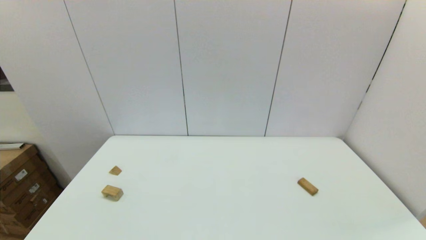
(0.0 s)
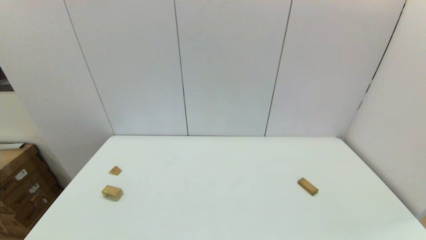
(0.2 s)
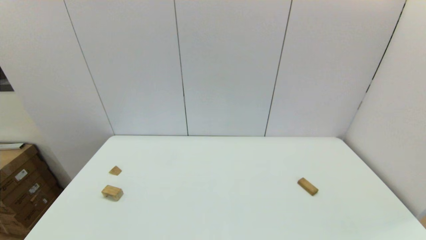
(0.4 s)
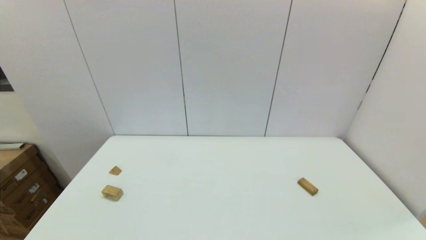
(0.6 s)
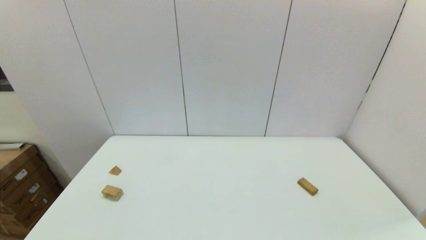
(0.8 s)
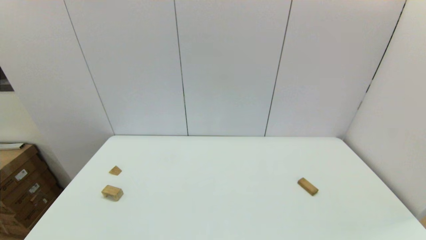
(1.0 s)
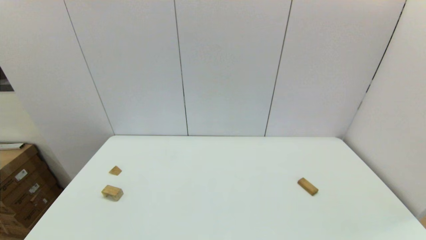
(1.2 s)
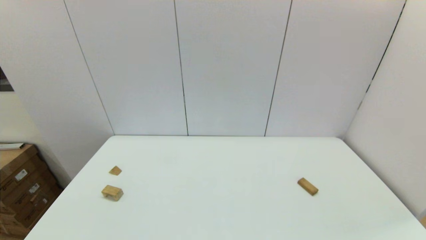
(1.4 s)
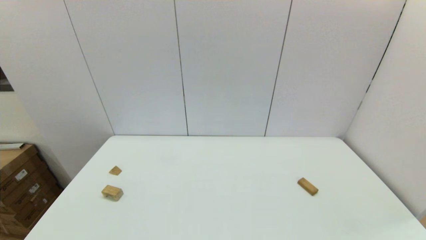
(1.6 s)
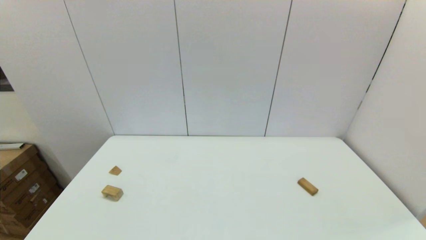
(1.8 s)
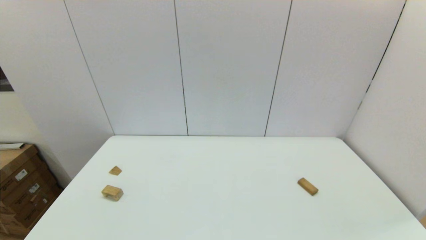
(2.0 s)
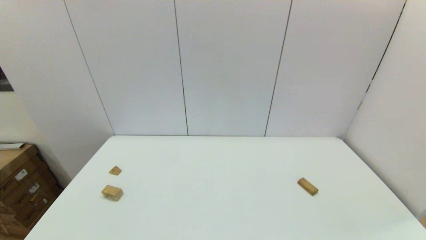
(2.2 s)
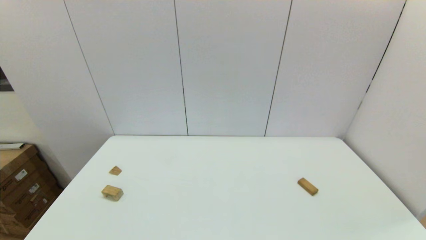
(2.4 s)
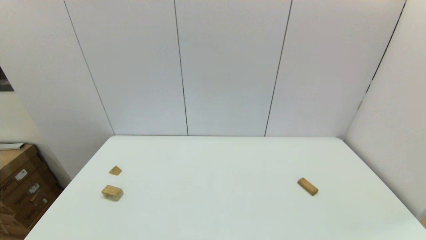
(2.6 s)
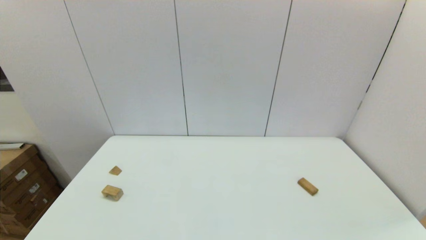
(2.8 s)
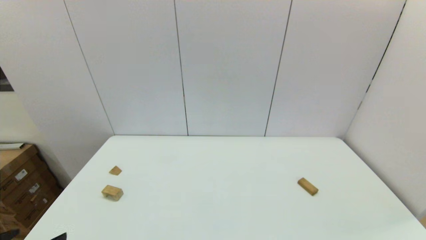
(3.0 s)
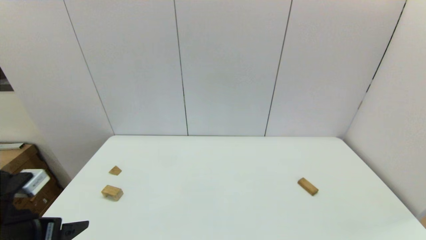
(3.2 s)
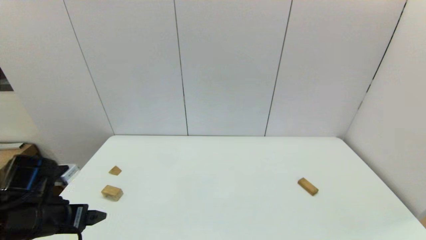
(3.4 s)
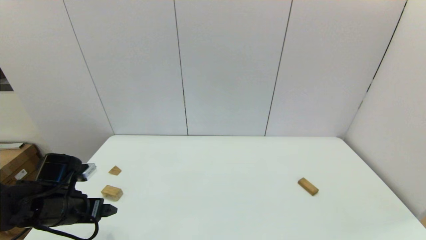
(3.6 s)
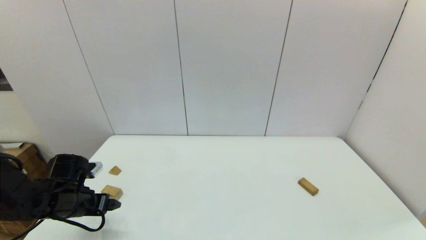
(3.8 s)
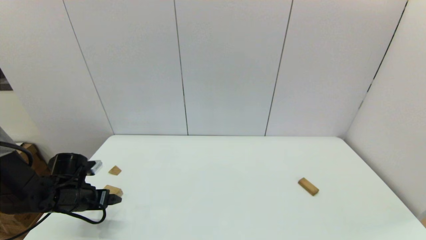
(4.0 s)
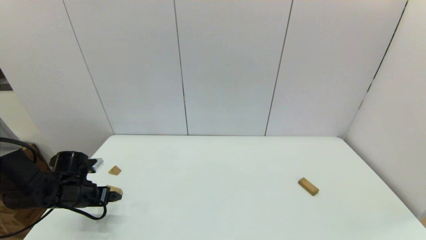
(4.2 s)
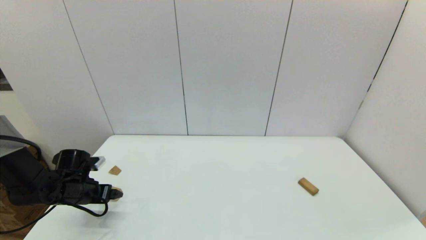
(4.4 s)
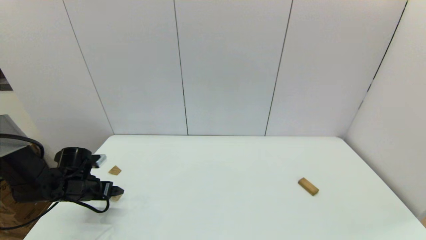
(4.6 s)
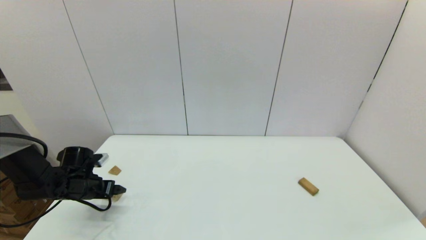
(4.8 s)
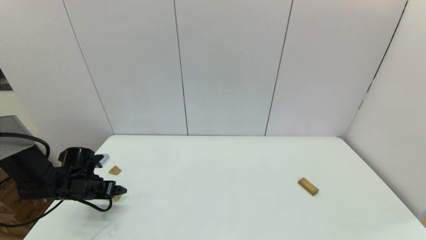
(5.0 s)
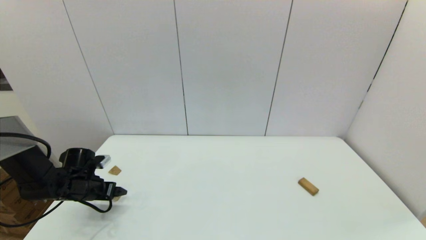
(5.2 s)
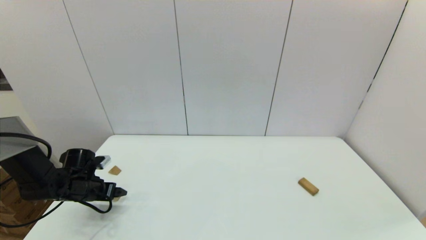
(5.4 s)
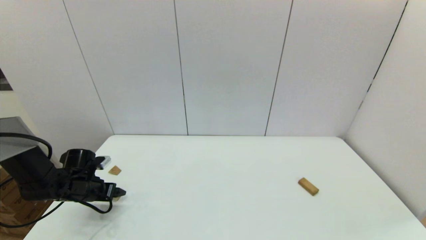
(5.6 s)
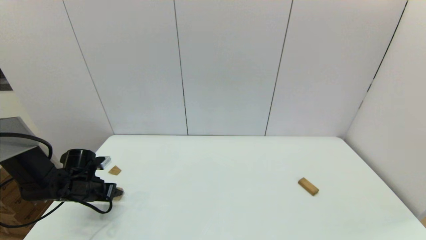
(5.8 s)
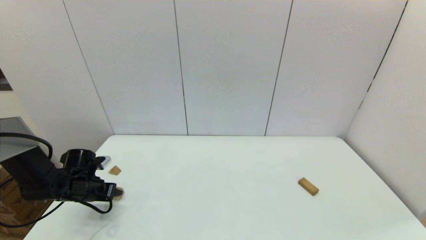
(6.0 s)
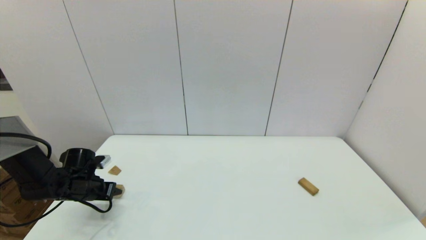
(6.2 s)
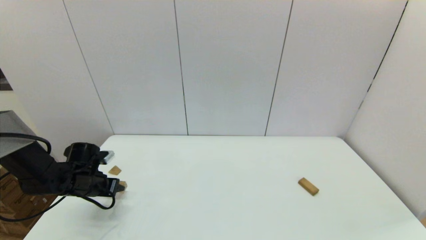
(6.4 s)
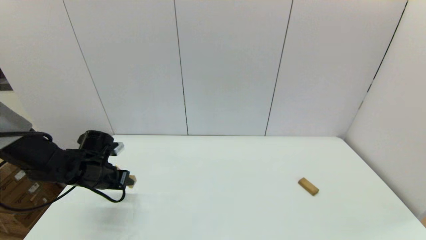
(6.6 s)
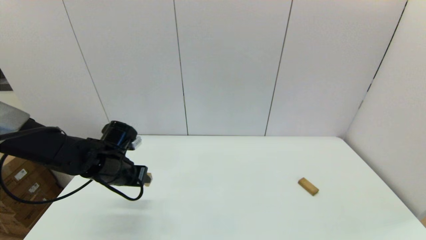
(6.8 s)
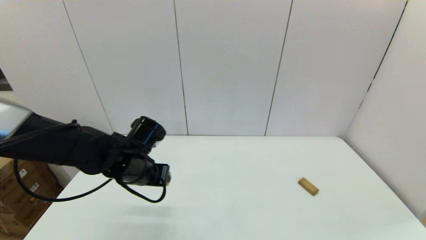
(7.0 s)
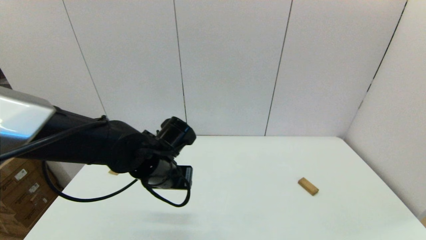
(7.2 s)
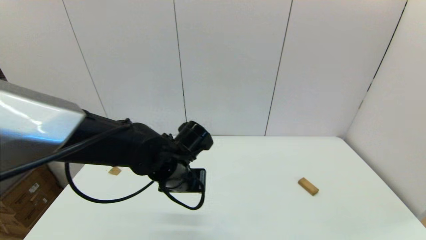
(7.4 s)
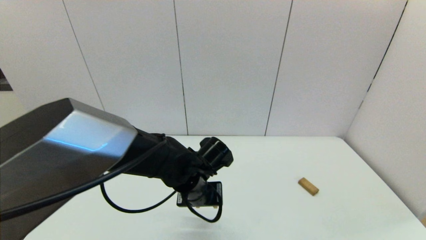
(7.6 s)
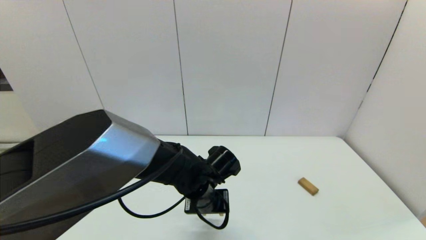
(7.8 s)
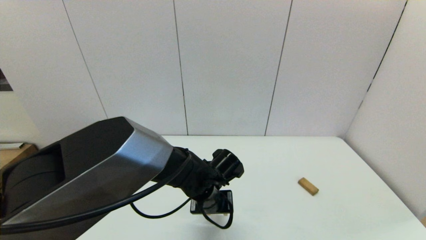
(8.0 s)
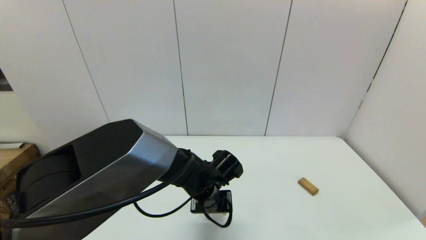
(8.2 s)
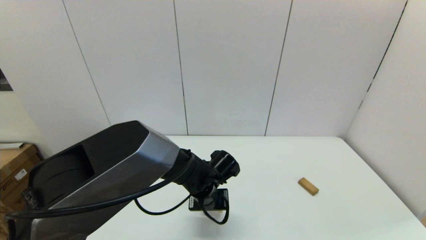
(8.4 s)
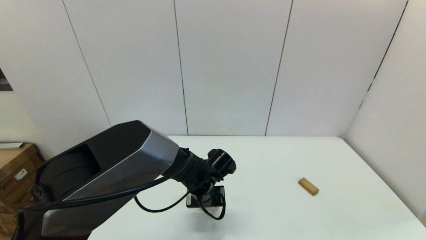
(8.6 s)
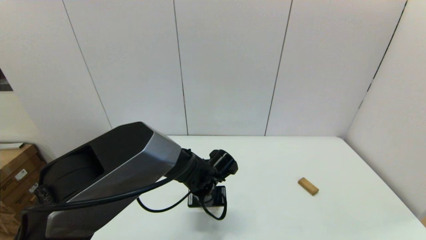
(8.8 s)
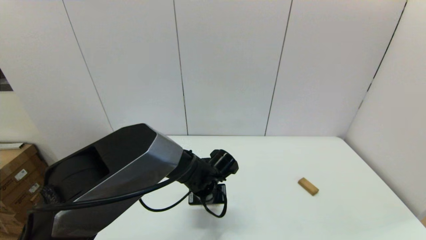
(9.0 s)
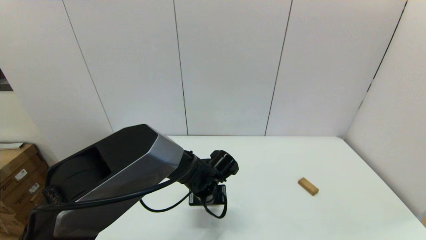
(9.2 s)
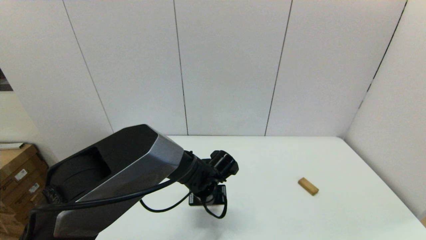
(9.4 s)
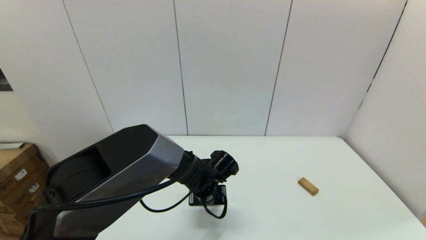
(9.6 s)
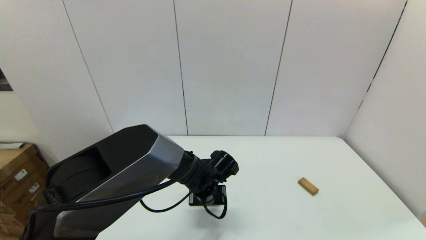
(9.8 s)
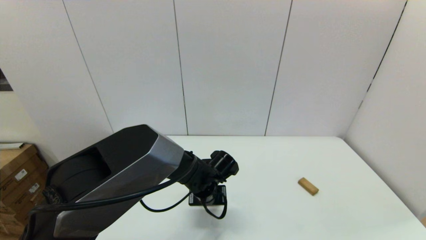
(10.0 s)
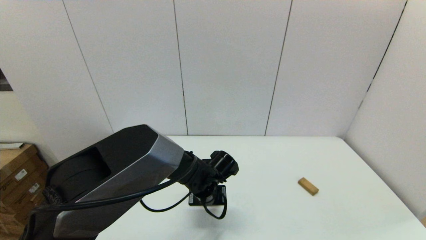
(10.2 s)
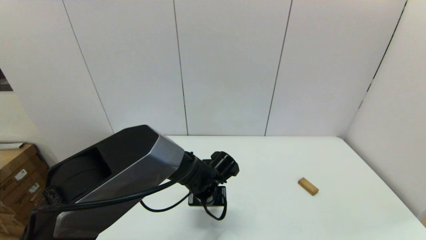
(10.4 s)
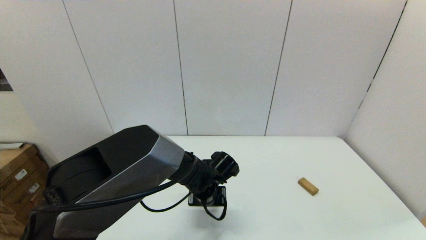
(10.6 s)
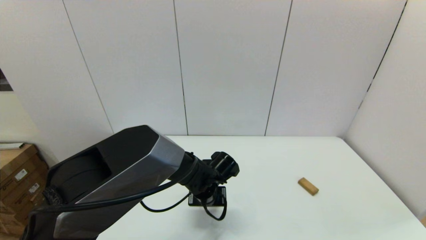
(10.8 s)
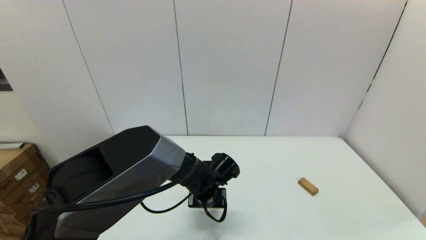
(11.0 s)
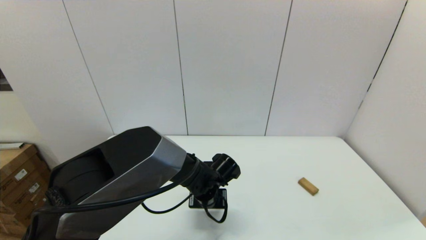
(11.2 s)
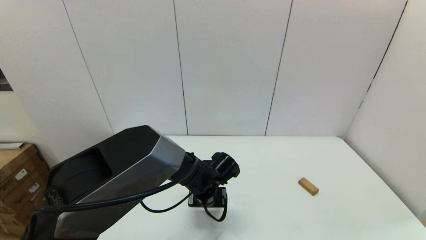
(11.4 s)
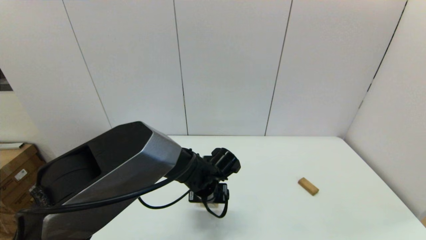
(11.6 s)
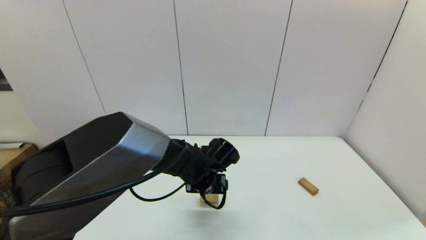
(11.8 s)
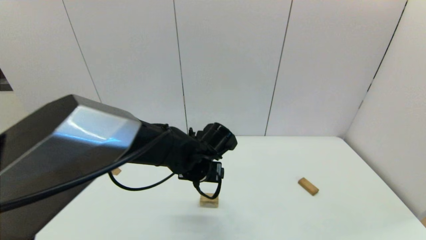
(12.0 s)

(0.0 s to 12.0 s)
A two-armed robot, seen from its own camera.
Task of the whole recording: place the arched building blocks in the center of the table, set up the rectangular building blocks, and then set up the triangular building blocks.
Step, 3.0 s - 5.8 s: Grasp the arch-shaped block with the left gripper.
Step, 6.2 s - 11.0 s: Place the arch-shaped block in the center of view with the left gripper.
0.0 s - 1.6 s: Both grippers stay put.
3.0 s - 4.4 s: The left gripper is displaced forward and downward by some 25 cm.
4.4 s - 6.0 s: The left gripper closes up.
6.0 s - 7.6 s: The left gripper goes approximately 30 cm to the right.
7.6 s - 9.0 s: The left gripper moves downward, approximately 10 cm.
9.0 s - 10.4 s: Both grippers stay about where they are.
10.4 s - 12.0 s: The left gripper shifts some 10 cm upward, and opens its fingers.

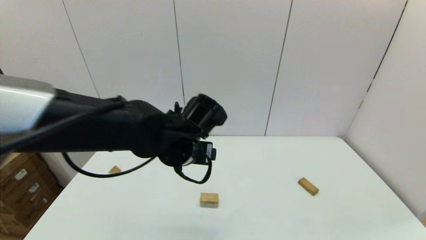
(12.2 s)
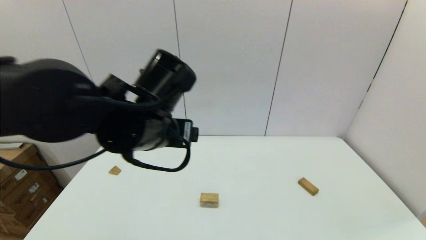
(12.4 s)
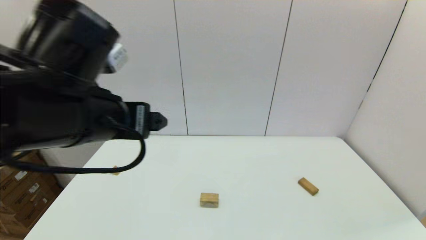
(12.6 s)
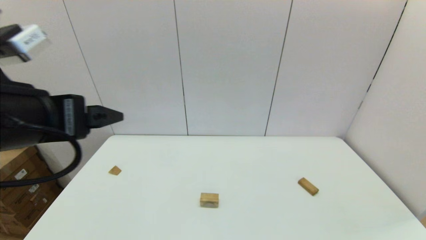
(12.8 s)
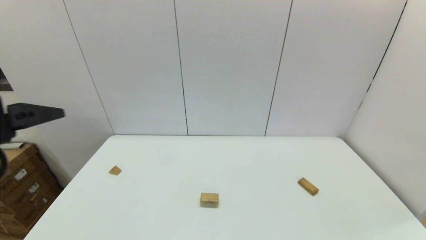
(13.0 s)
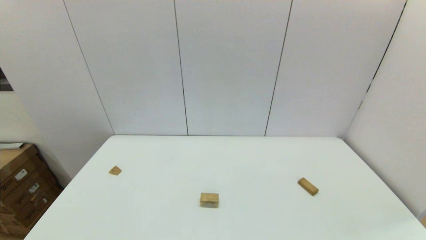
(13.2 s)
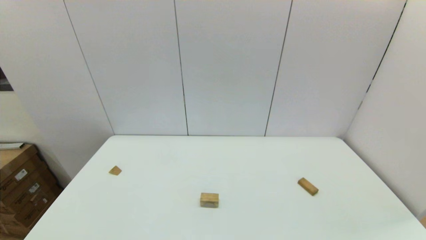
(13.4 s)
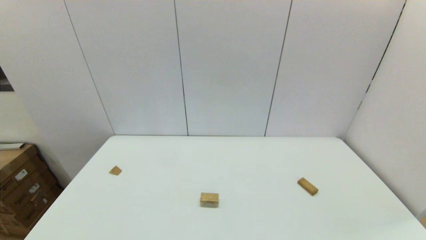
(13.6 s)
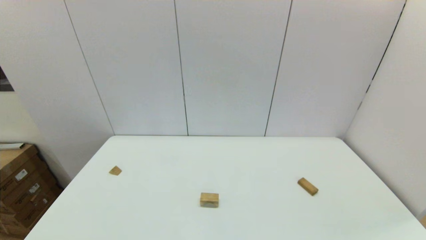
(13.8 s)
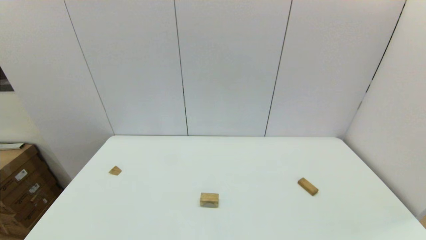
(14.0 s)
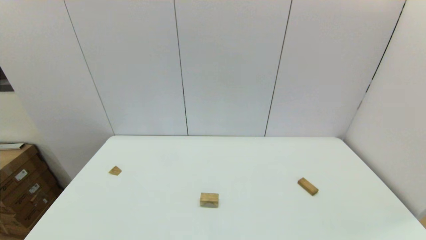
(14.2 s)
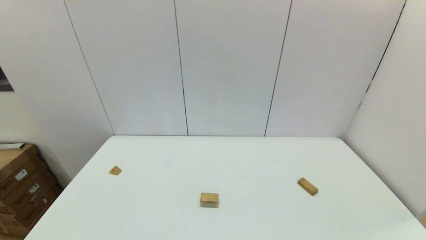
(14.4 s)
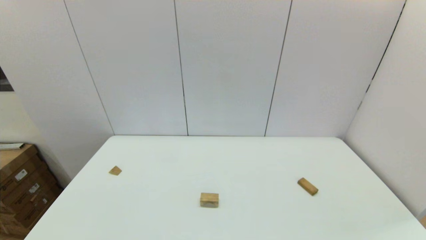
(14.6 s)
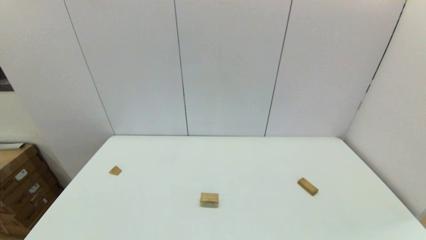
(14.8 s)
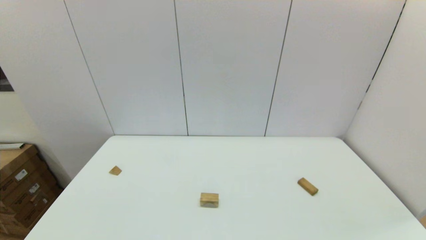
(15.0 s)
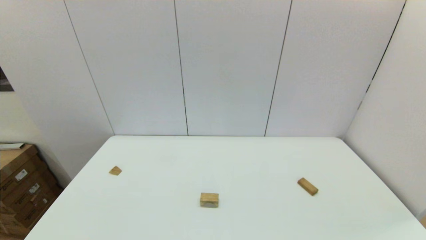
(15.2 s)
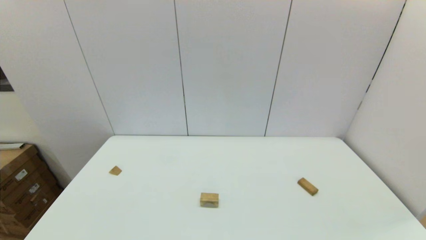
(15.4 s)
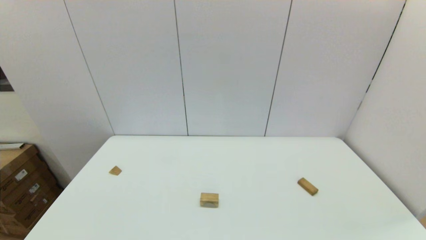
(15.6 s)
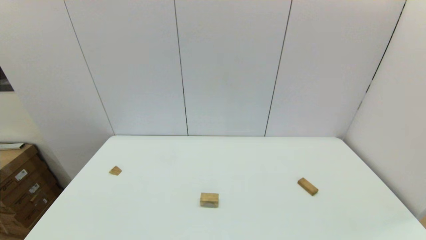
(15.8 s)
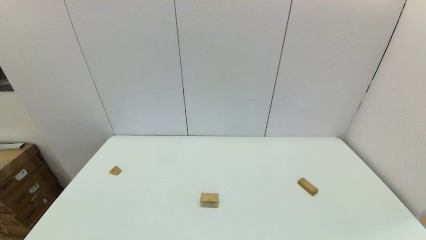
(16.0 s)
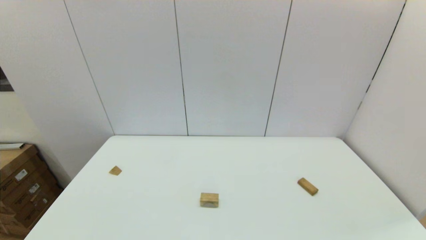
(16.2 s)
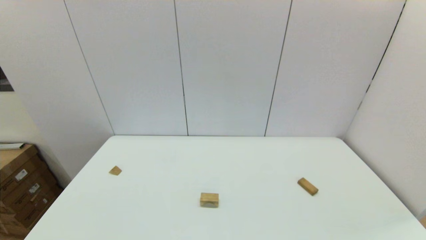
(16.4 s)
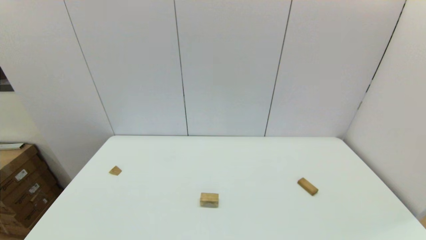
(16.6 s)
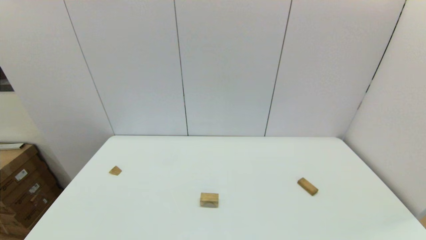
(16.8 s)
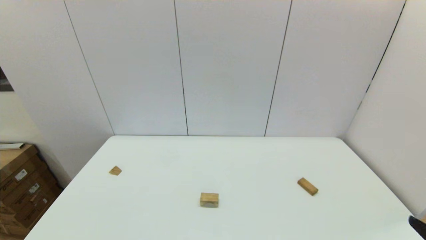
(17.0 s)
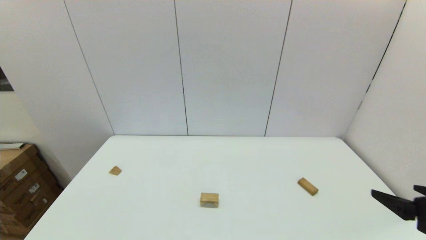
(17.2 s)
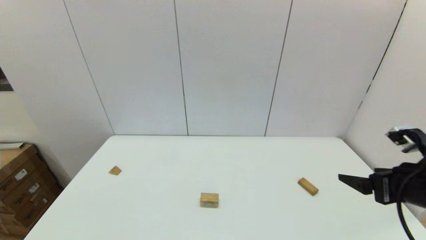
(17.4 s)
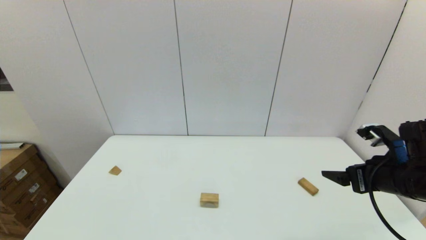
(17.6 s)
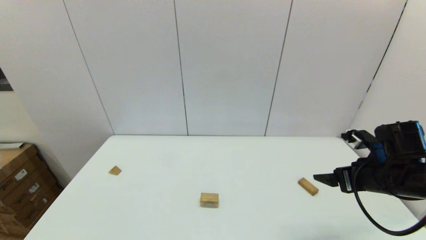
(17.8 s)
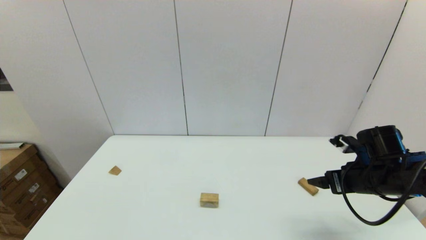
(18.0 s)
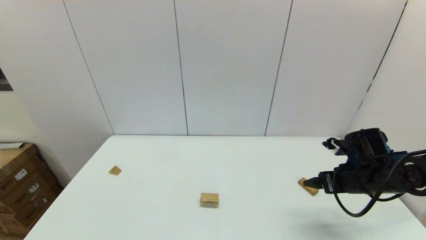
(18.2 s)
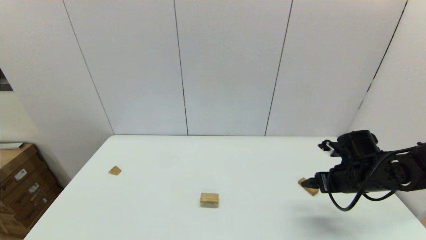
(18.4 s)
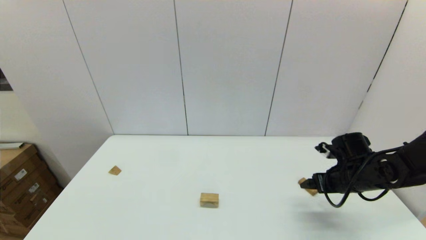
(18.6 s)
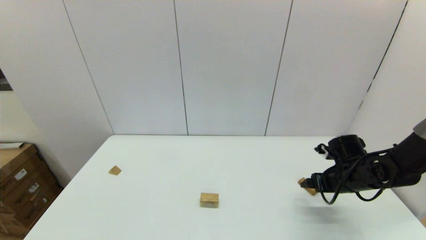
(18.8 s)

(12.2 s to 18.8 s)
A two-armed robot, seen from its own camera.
Task of the whole recording: place the arched building blocks in the center of the table, set up the rectangular building blocks, and then set up the triangular building blocks.
12.2 s - 13.8 s: The left gripper is displaced backward and to the left by roughly 40 cm.
15.4 s - 17.2 s: The right gripper heads forward and upward, covering some 20 cm.
17.2 s - 18.8 s: The right gripper travels forward and downward by some 25 cm.
